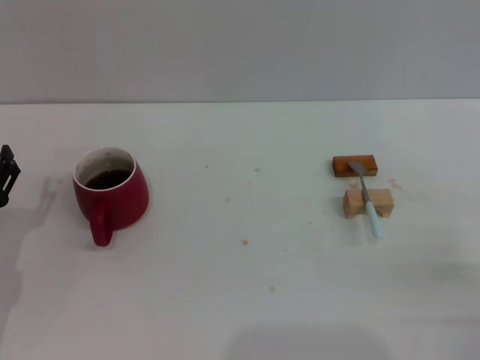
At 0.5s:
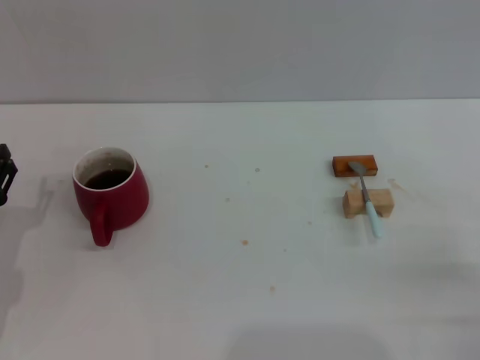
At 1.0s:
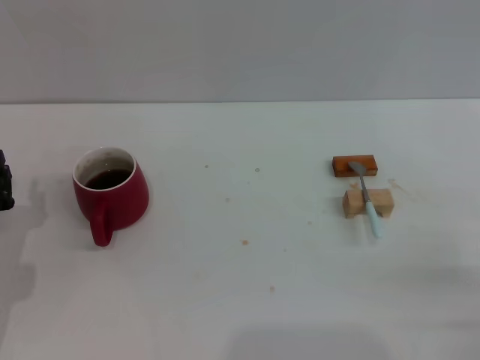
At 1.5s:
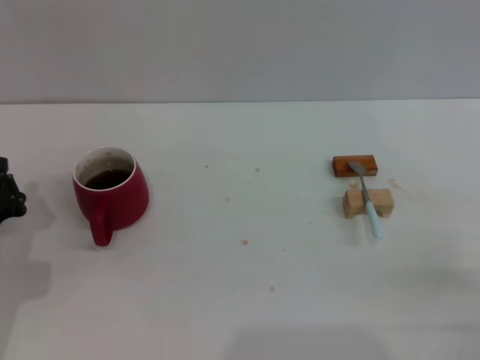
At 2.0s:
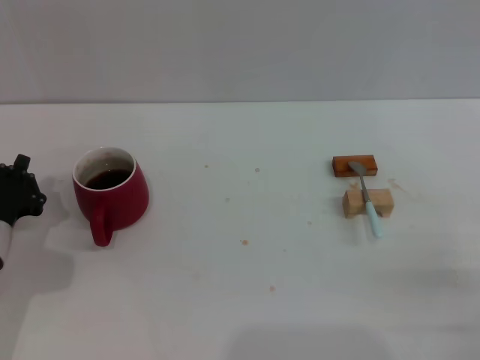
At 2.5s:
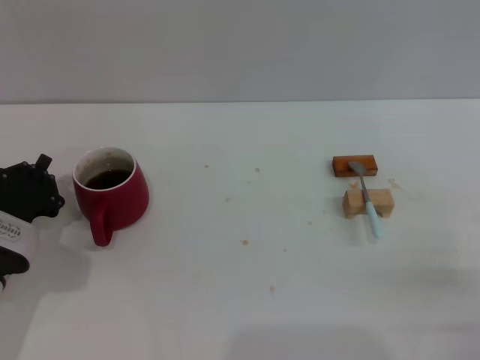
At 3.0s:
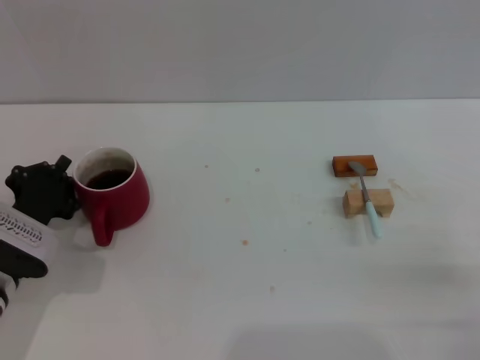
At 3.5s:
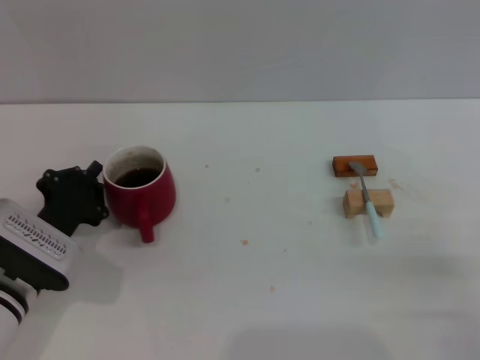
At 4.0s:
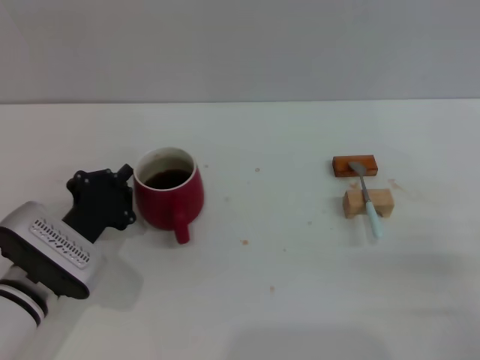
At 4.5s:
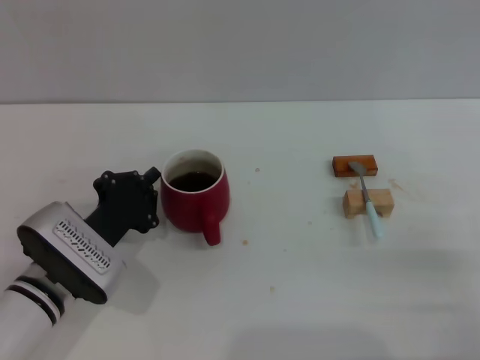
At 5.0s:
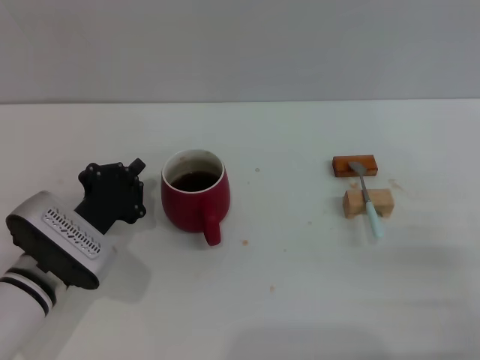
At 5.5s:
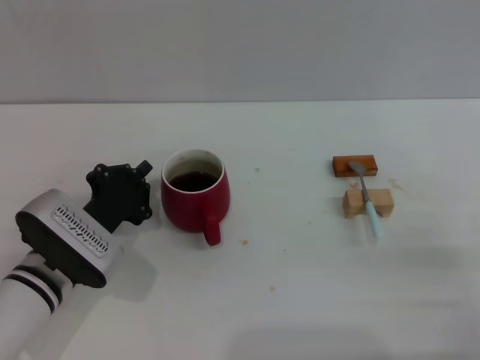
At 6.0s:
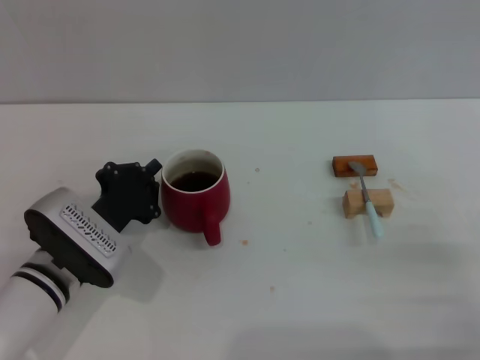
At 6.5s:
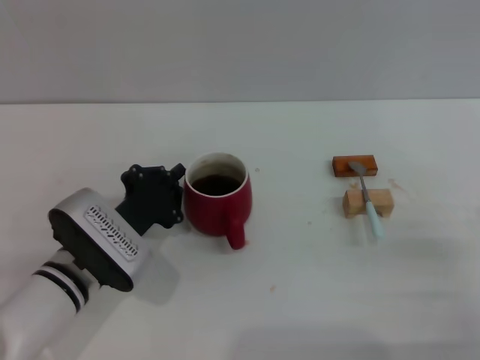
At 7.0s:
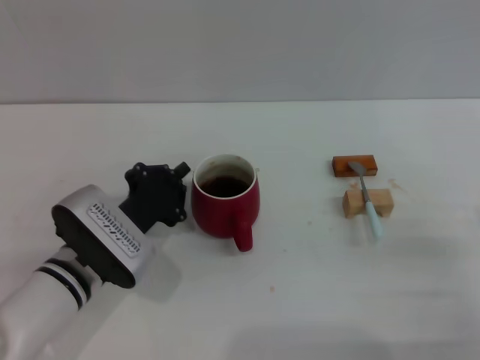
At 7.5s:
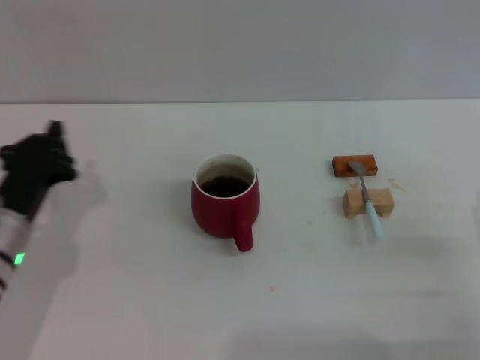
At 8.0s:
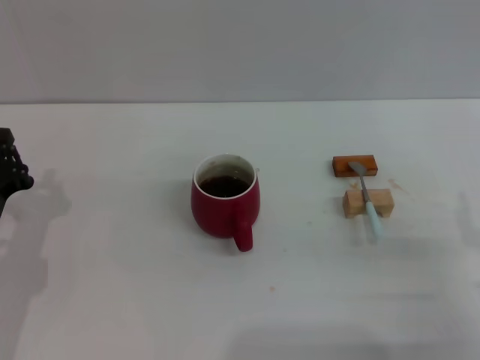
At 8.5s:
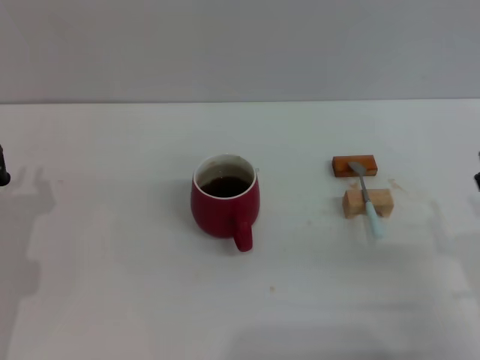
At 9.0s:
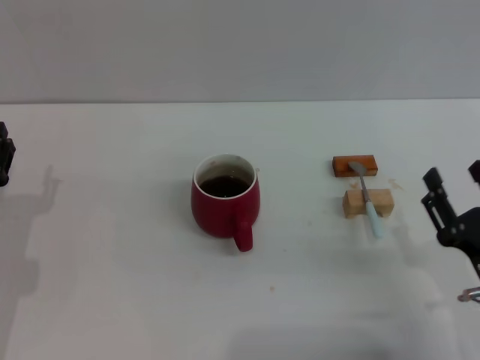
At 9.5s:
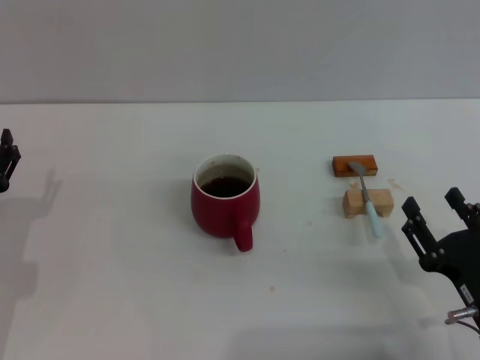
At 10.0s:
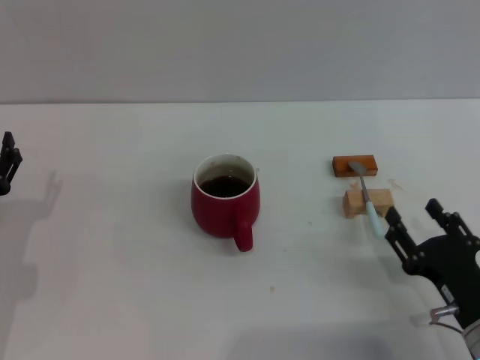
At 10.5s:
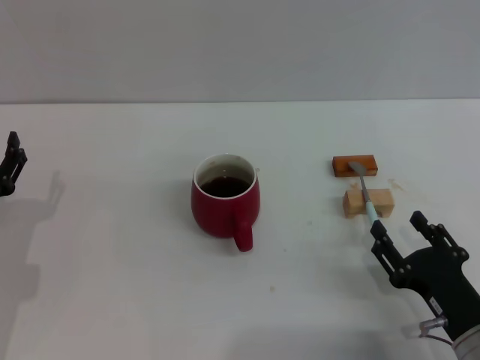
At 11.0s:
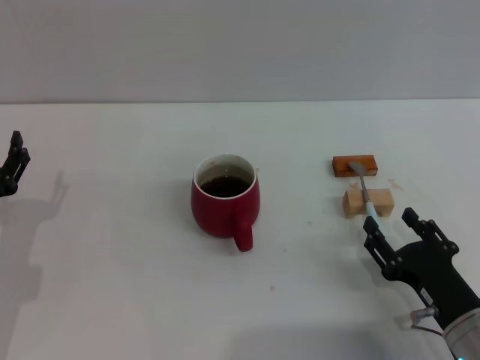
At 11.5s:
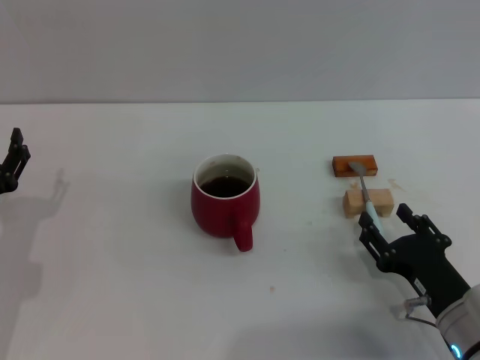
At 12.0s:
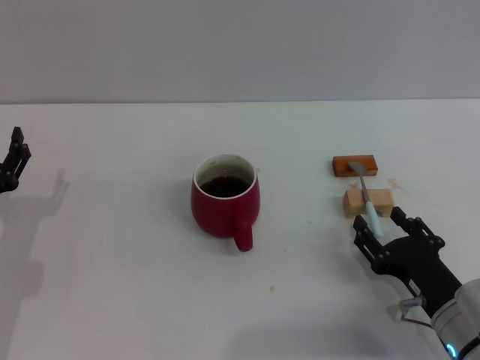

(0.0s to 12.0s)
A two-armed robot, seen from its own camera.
Task of the whole recording: Move the red cup to the center, lift the blue spoon, stir it three times in the cup, and put the spoon into the cup.
Step, 0.0s - 9.0s: Move the cup with coffee to the center of view with the left gripper.
0.0s - 2.0s: The left gripper closes its fingers.
2.0s - 4.0s: The left gripper heads to the right, covering approximately 5 cm.
4.0s - 6.0s: The grippers make only small movements.
6.0s - 8.0s: The left gripper moves to the left, some 10 cm.
8.0s - 10.0s: The right gripper is displaced to the left by roughly 5 cm.
10.0s - 12.0s: The grippers move only a little.

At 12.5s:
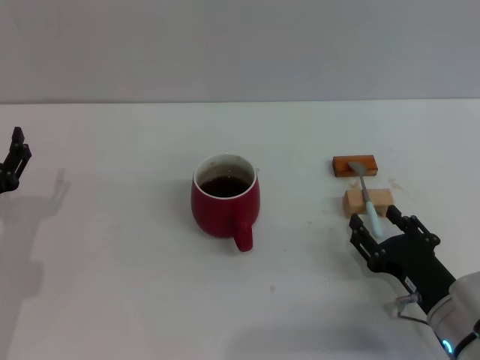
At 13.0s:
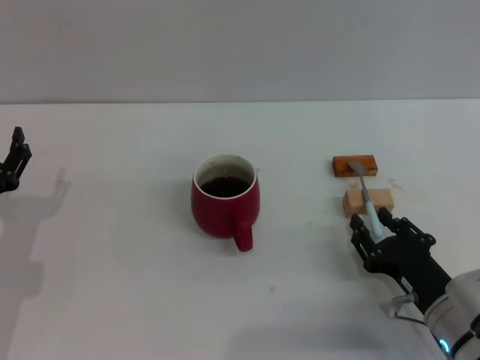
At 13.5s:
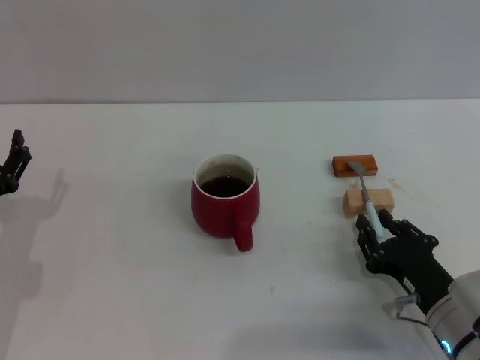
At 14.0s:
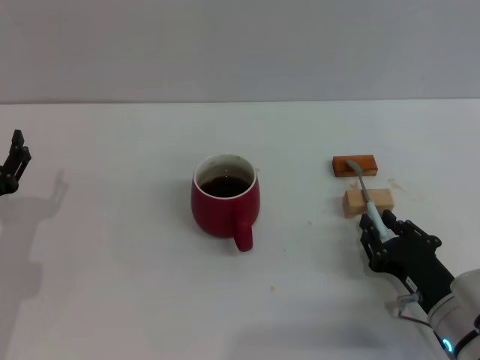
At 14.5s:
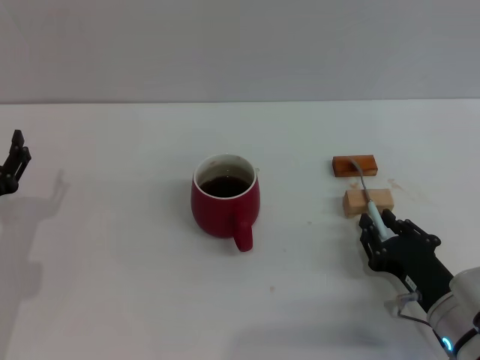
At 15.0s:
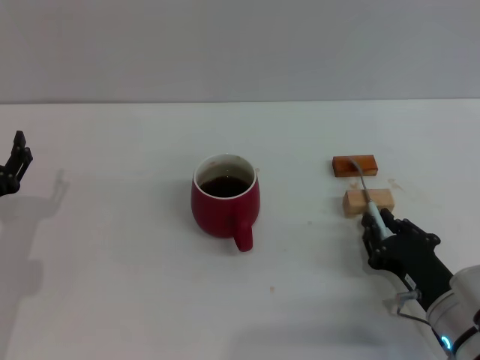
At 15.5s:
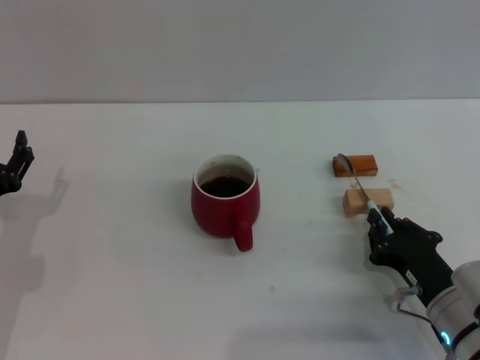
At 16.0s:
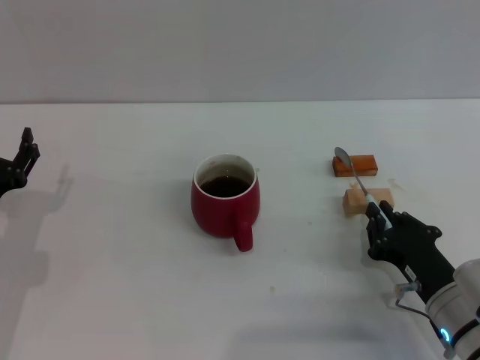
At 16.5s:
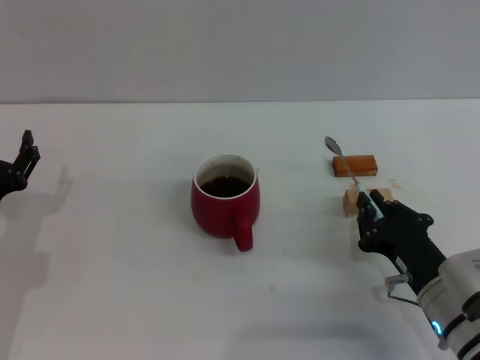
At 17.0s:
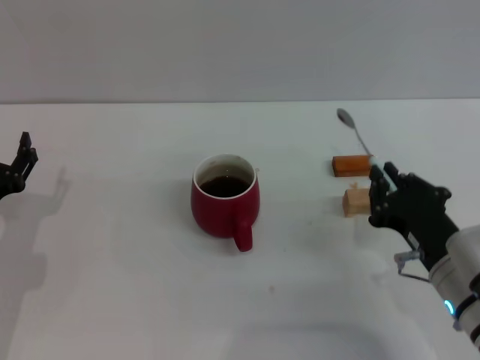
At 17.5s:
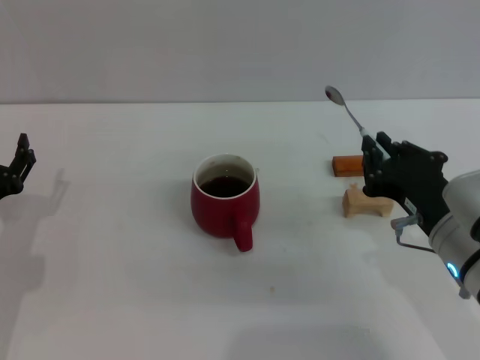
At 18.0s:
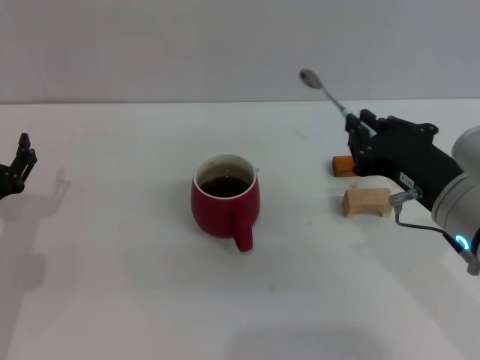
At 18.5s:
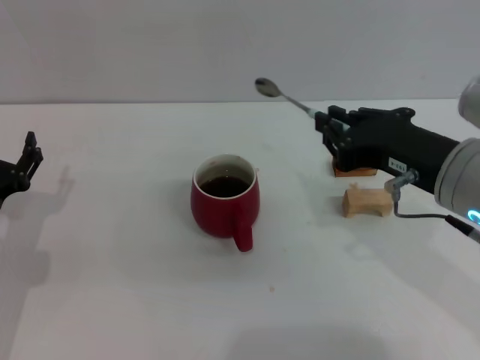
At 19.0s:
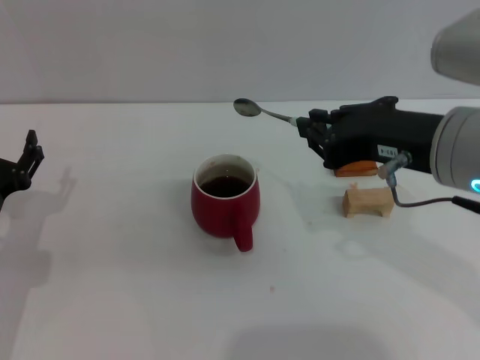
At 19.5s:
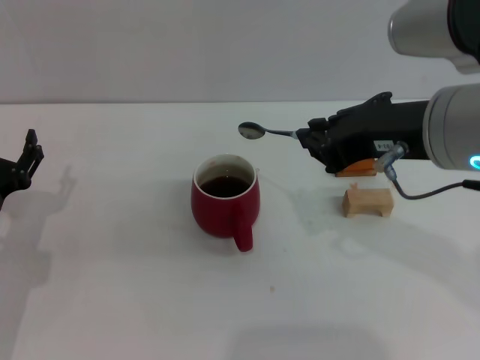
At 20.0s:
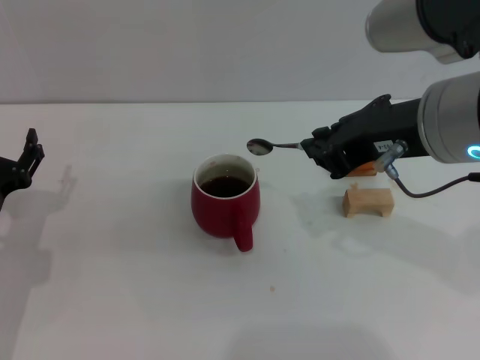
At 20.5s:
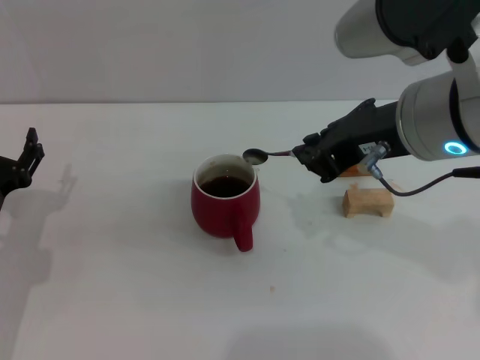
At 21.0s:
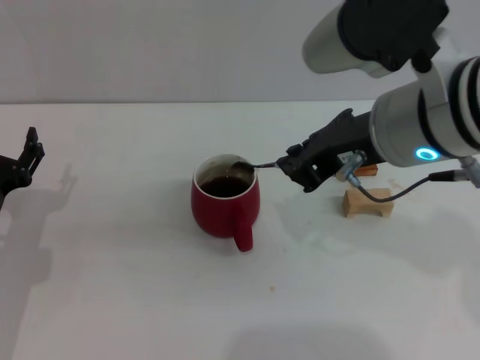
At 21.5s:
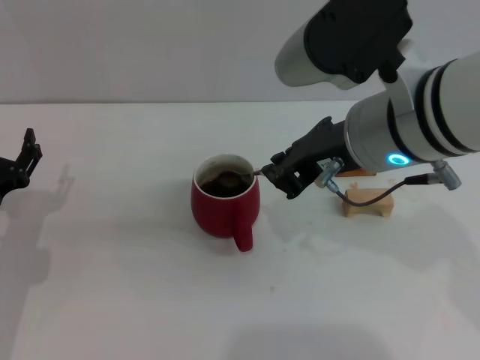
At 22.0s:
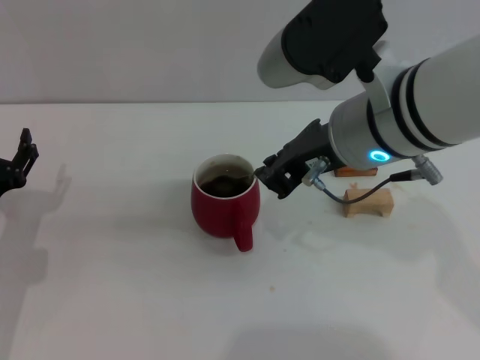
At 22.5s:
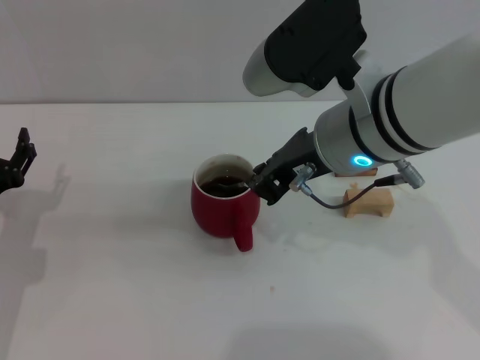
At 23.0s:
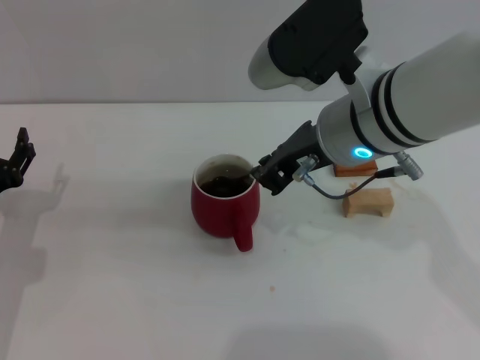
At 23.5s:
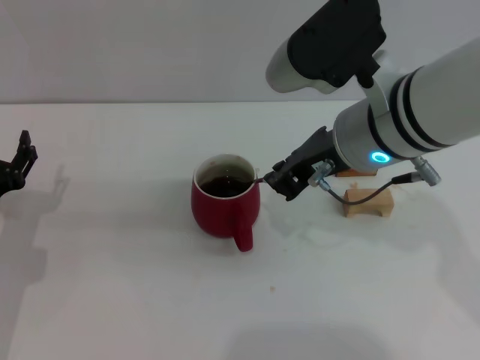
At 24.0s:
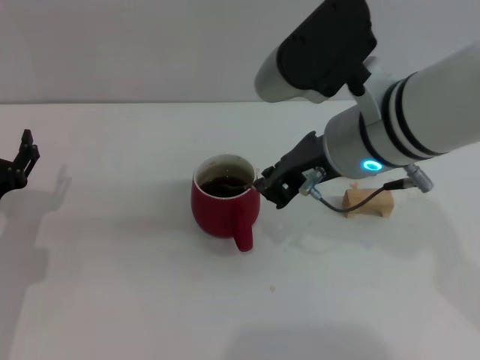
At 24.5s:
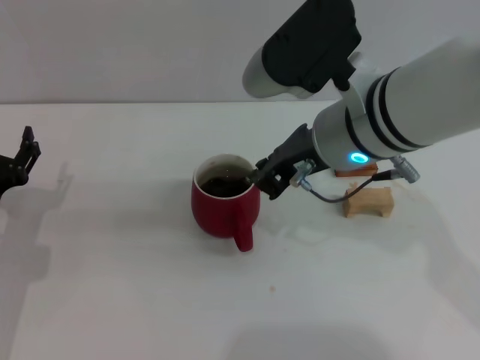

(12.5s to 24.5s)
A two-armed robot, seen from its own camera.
Task of the whole recording: Move the red cup to the center, lift the blue spoon, stir it three times in the cup, and put the spoon into the cup.
Step, 12.5s - 16.5s: Pick up the spoon with the right gripper.
12.5s - 14.5s: The right gripper closes up.
14.5s - 16.5s: The right gripper closes its fingers.
16.5s - 18.5s: The right gripper travels upward by some 20 cm.
18.5s - 20.5s: The right gripper shifts about 5 cm upward.
20.5s - 22.5s: The right gripper shifts by some 5 cm.
22.5s - 24.5s: The grippers make only small movements.

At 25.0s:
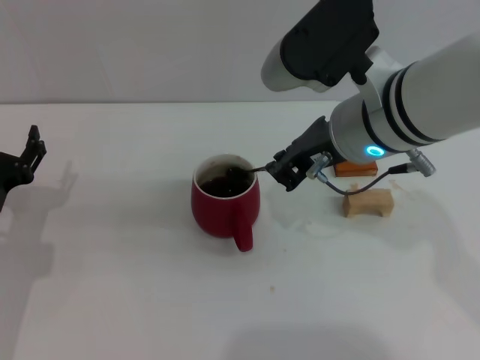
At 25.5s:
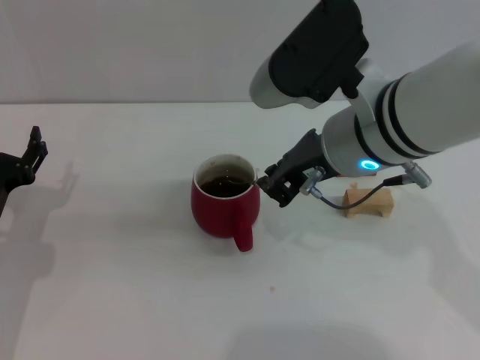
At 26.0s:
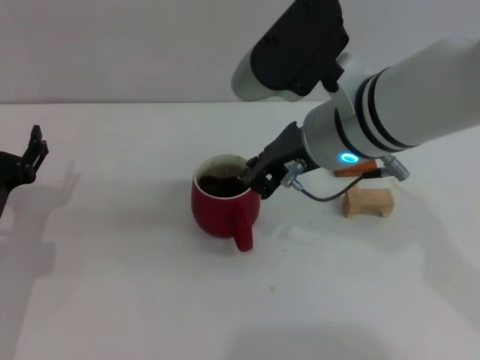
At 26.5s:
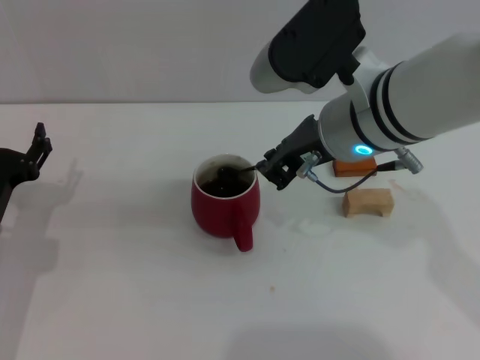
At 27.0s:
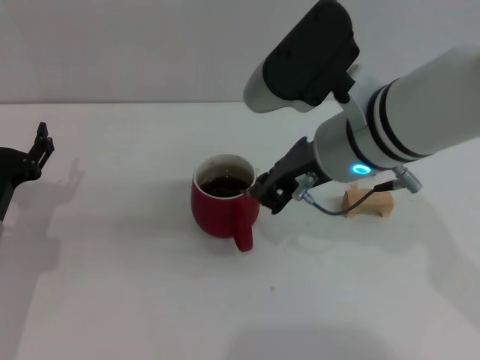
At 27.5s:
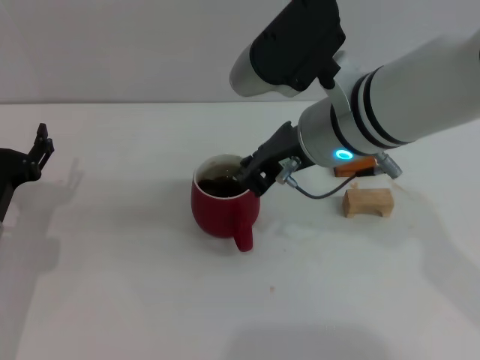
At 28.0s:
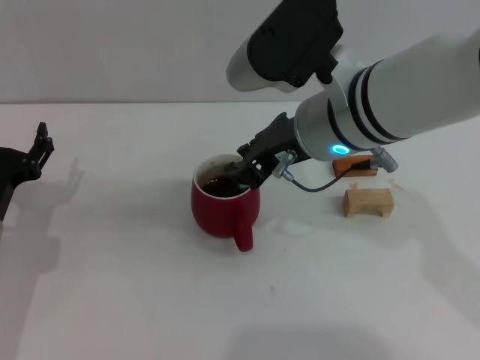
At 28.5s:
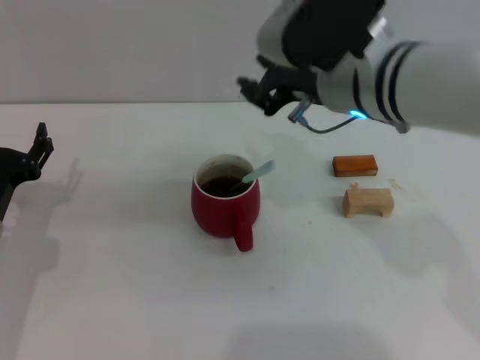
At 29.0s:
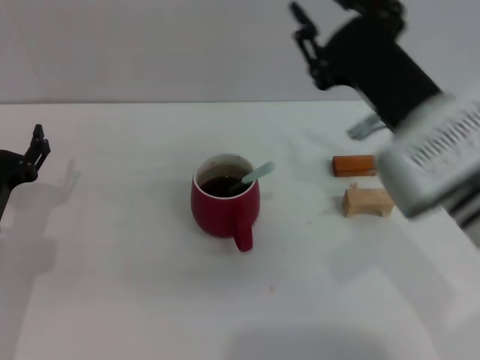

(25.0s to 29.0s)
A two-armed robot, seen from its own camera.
Task of the whole recording: Move the red cup to the center, lift the blue spoon, stir it three times in the cup, and put the spoon into the cup.
Step, 25.0s - 28.0s: Stir the coffee in the cup with the right gripper.
25.0s - 27.0s: There are only small adjustments of the grippers.
27.0s - 29.0s: The right gripper shifts some 5 cm to the right, and opens its fingers.
